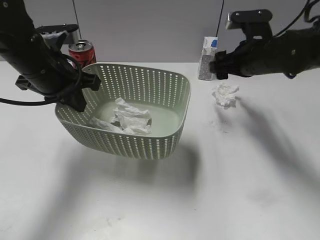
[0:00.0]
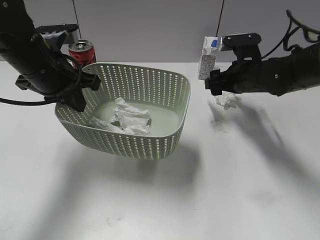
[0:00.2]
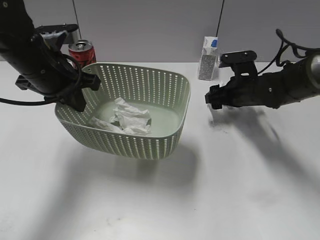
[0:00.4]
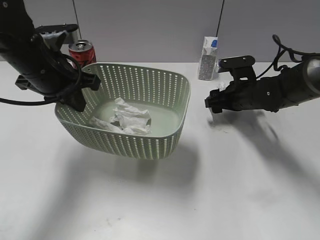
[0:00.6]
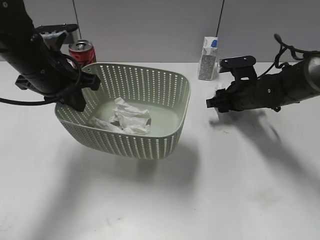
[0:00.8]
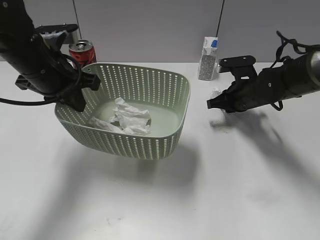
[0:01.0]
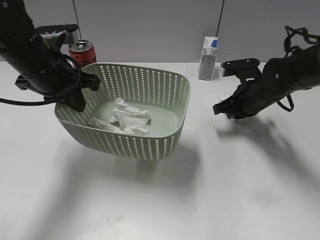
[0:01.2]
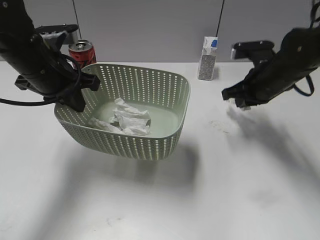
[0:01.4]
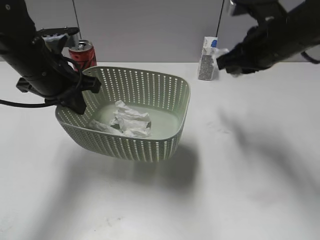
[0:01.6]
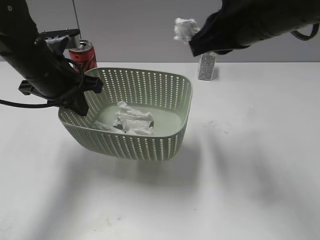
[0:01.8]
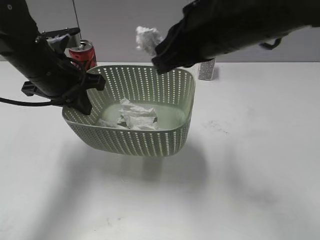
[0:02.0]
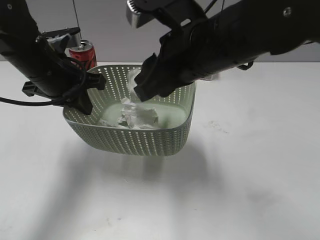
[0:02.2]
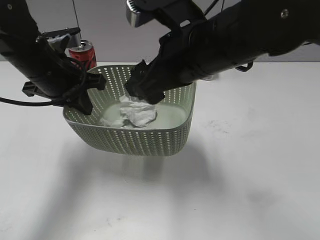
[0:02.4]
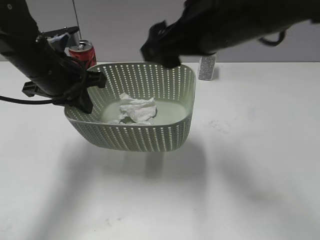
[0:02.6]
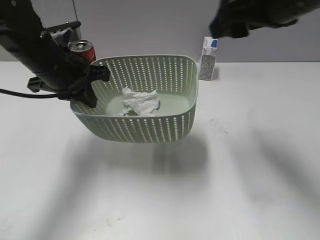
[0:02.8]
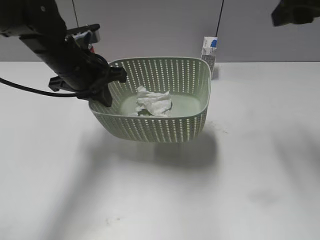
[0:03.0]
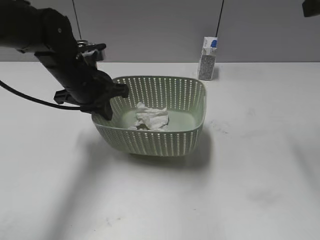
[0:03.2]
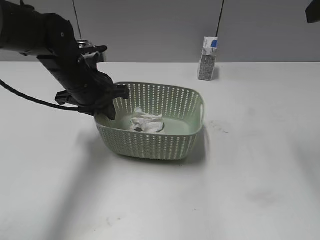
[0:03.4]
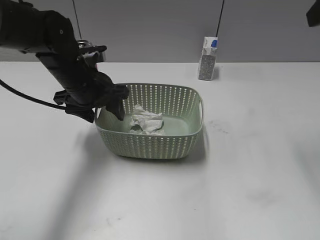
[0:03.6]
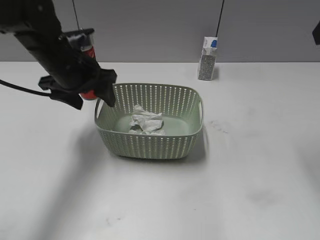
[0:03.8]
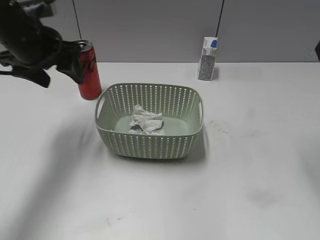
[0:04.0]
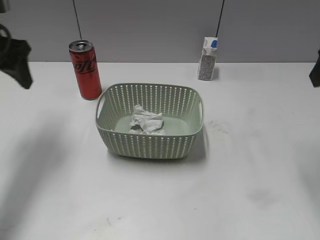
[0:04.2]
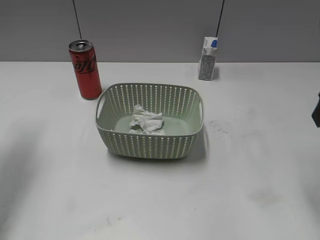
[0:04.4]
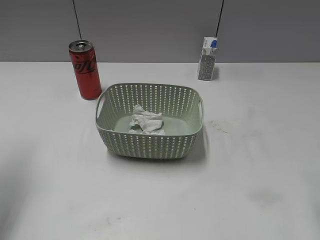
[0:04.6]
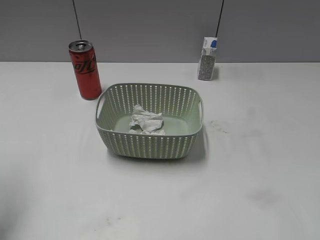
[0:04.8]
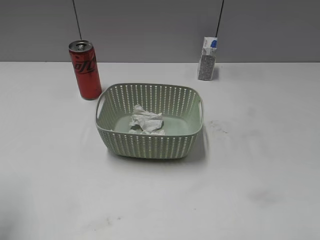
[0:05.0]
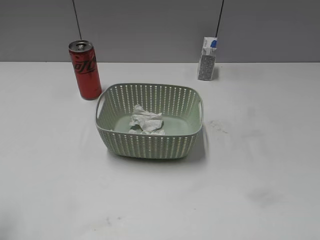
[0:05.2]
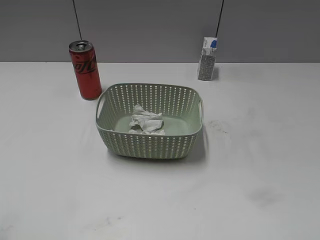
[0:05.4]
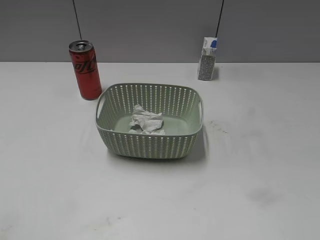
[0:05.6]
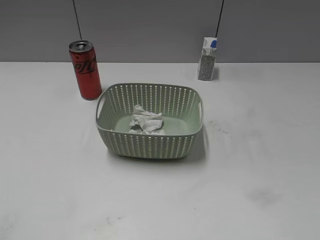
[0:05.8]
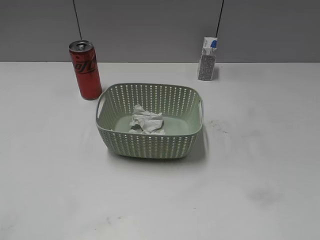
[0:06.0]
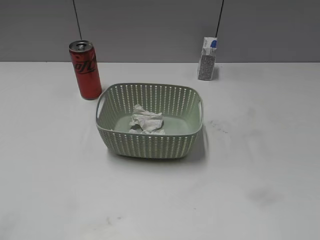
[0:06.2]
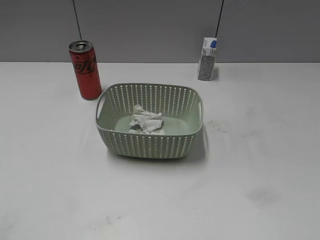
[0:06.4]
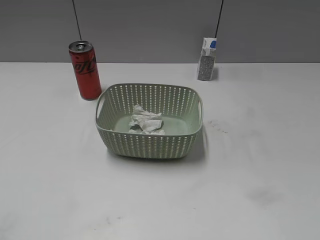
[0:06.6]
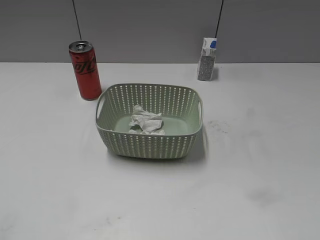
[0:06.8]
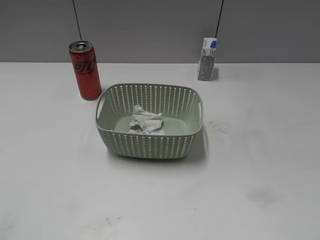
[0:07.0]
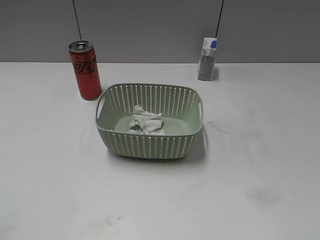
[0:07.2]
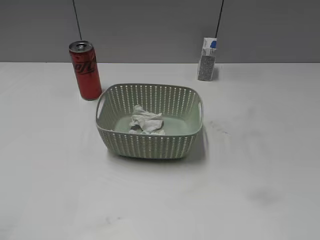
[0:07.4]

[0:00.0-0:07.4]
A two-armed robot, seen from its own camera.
Step, 0.0 to 1.4 s: Grasp the waste paper with right gripper.
Step, 1.6 to 2.6 s: Place the waste paper in the basket with right gripper.
Step, 2.8 to 3.8 s: Place the basket on the table with left gripper.
0.0 to 1.4 s: The right gripper heads downward, covering roughly 5 cm, and closes its fingers.
1.4 to 3.0 s: The right gripper goes up and down, approximately 20 cm each way, reversing 2 times, and opens.
3.0 to 4.4 s: The right gripper goes about 5 cm backward. Meanwhile the left gripper shifts about 20 cm to the left and upward, and opens up.
4.4 to 6.0 s: The left gripper shifts some 30 cm backward.

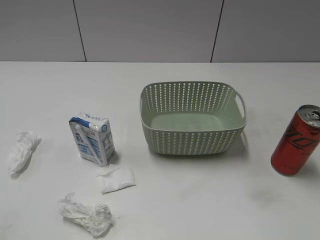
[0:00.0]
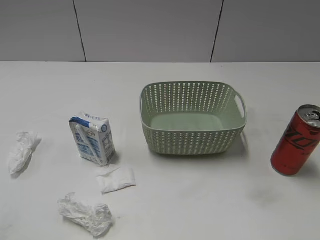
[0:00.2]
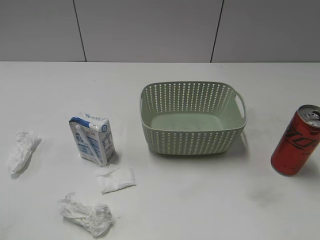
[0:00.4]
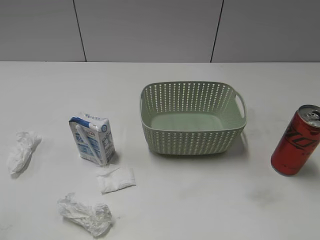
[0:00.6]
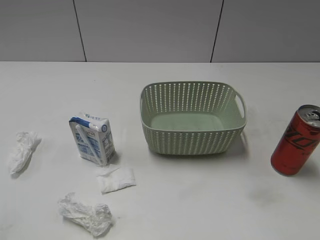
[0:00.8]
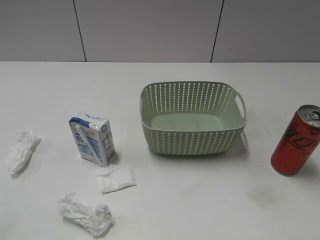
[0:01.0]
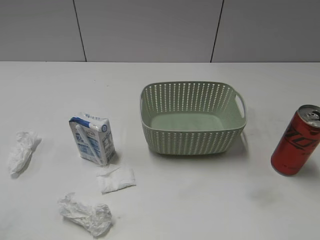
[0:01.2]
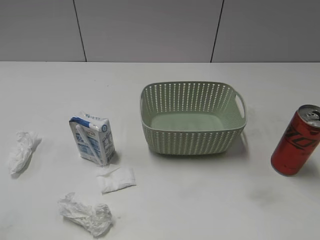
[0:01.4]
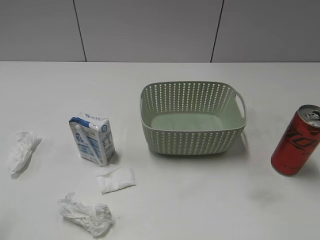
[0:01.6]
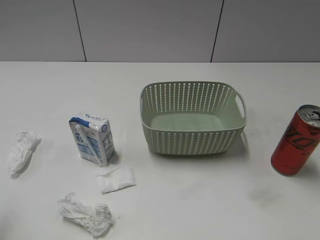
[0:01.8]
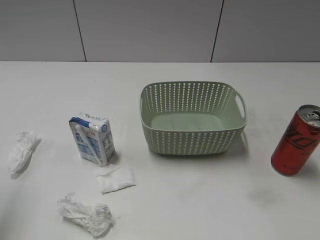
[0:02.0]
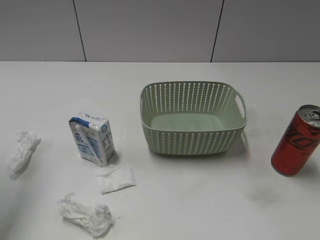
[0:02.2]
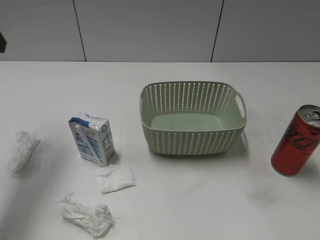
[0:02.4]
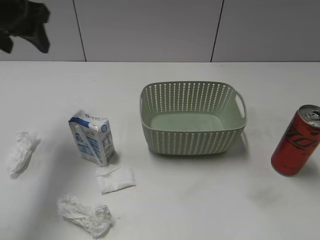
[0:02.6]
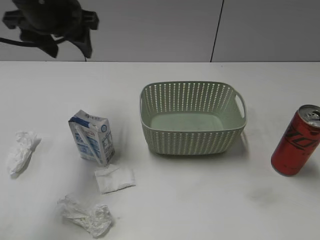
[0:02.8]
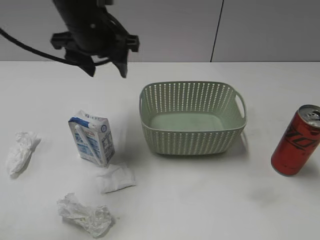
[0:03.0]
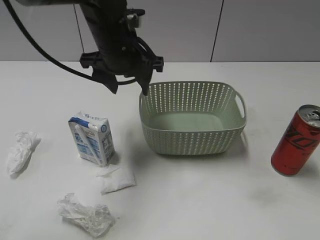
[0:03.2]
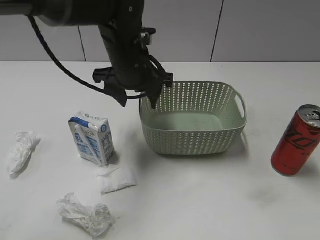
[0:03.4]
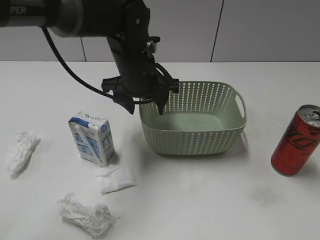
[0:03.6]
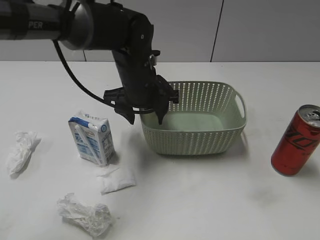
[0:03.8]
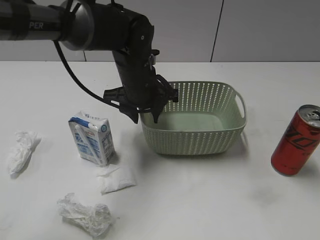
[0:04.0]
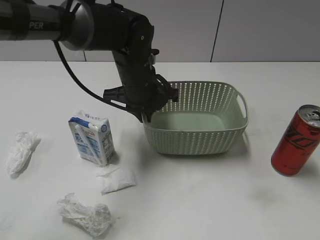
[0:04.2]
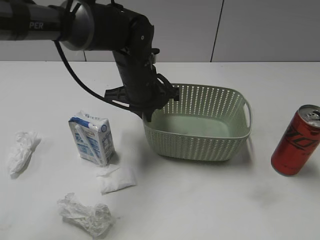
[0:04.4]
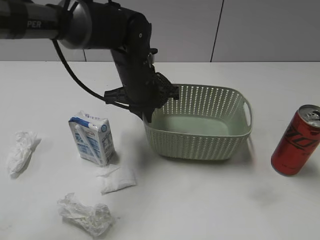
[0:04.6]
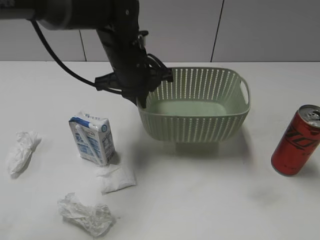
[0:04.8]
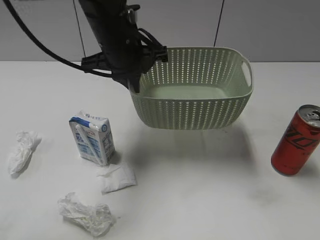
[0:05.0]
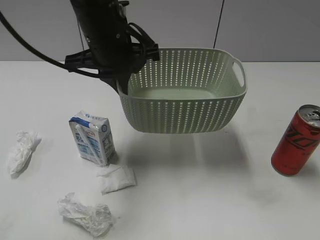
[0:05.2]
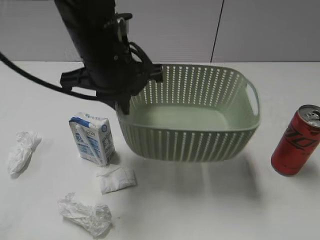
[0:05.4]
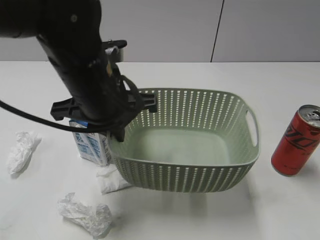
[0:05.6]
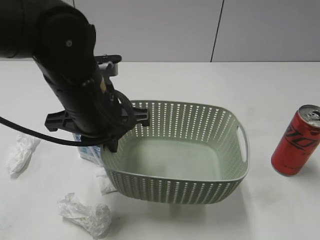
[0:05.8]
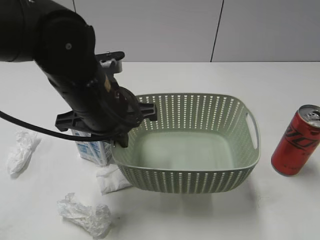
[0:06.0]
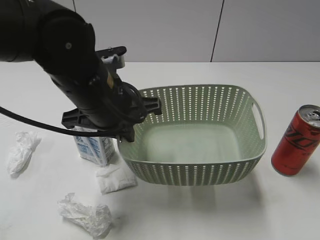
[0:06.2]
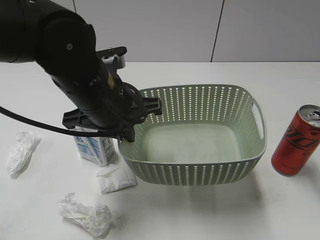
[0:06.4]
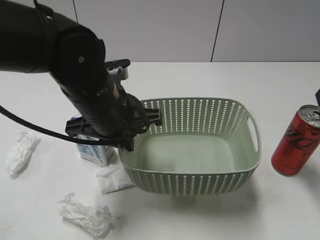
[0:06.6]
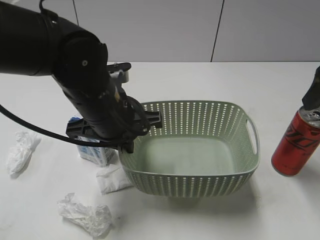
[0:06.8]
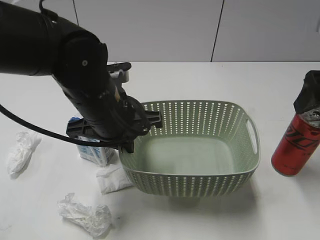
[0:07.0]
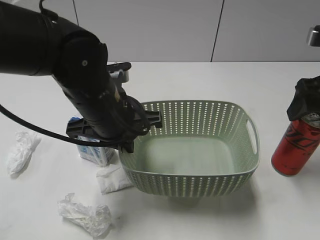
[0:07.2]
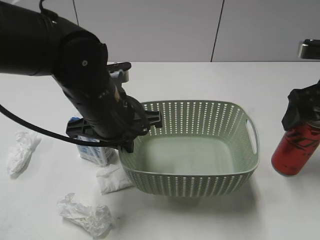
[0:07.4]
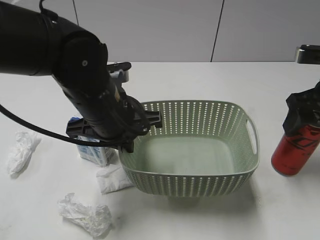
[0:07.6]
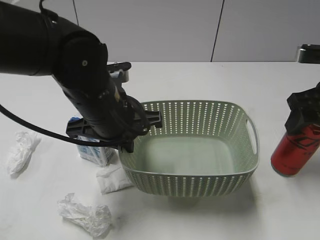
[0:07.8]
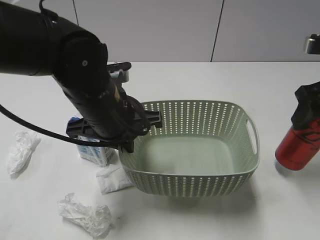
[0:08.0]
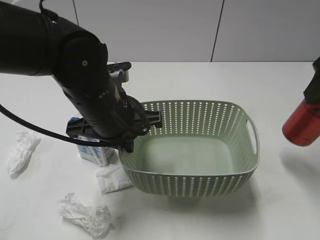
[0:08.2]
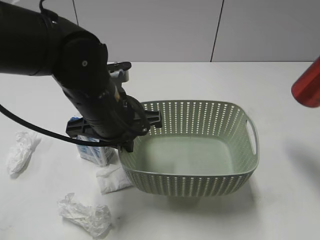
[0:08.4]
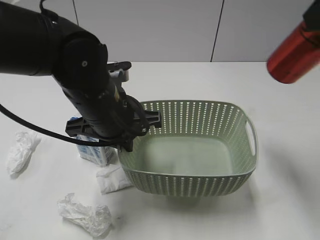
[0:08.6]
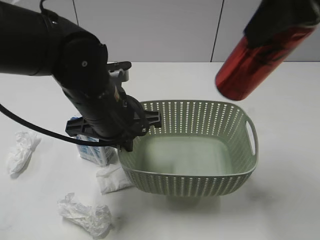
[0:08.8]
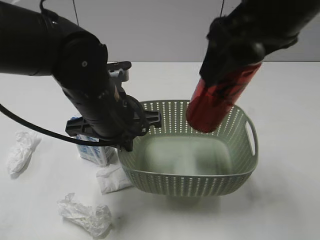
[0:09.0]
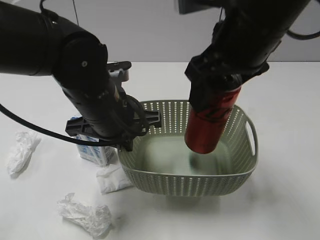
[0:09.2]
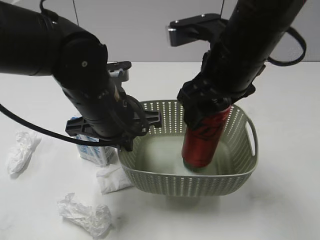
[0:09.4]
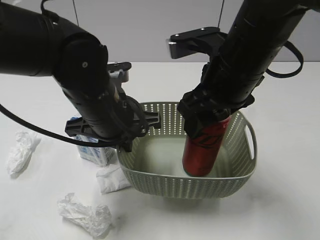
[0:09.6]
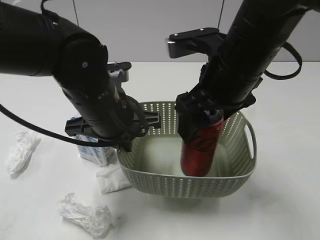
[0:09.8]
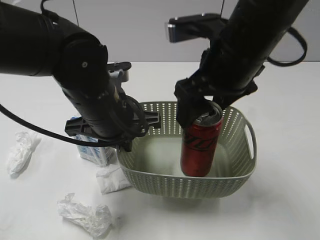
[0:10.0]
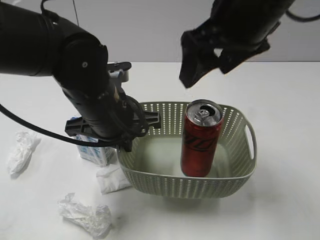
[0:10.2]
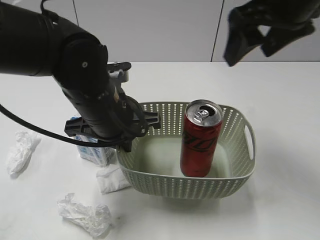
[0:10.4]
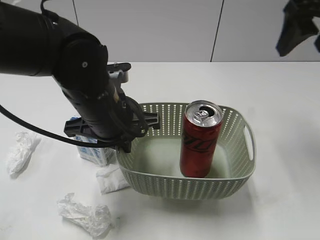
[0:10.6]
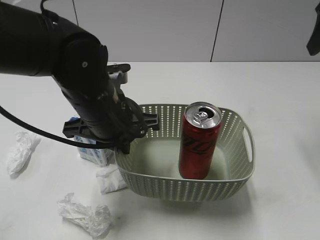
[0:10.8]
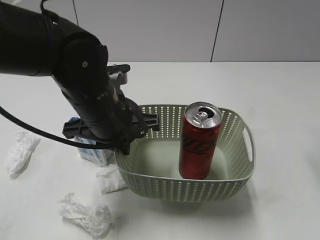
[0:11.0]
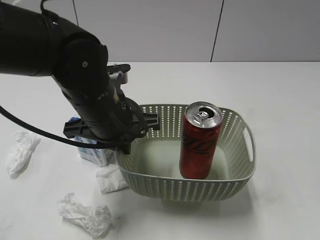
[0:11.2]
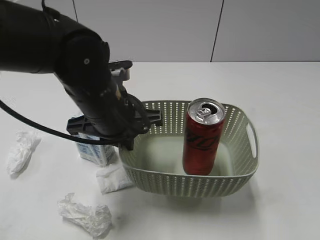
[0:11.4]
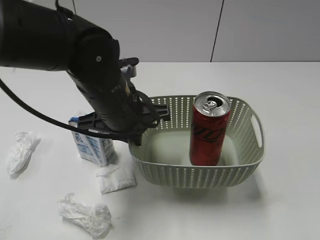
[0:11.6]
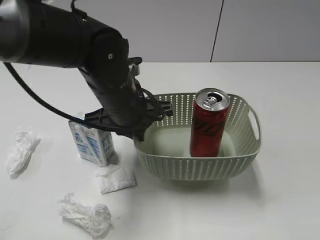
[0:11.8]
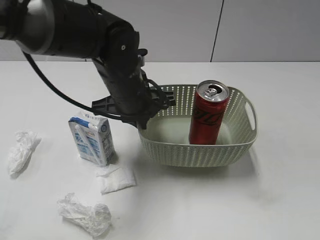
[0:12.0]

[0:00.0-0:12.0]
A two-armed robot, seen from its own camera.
Step, 2.4 to 4.4 s: Grasp the basket with left gripper.
Step, 4.6 to 6.4 s: Lift the basket with left gripper.
Step, 6.6 to 7.6 s: Grasp the cola can with right gripper.
Step, 7.8 to 10.2 s: Place the cola can in the basket with right gripper.
1.6 to 3.0 s: The left gripper goes approximately 40 cm forward and to the right.
3.0 to 4.4 s: The left gripper heads downward and to the right, covering about 15 cm, and closes its fingers.
4.4 to 6.0 s: The right gripper is displaced forward by some 5 cm, and opens. Meanwhile the left gripper is displaced backward, upward and to the left by some 15 cm.
6.0 to 7.6 s: The right gripper shifts roughly 25 cm forward and downward, and closes its fingers.
7.6 to 9.0 s: The right gripper heads to the left and upward, covering some 20 cm, and closes.
9.0 to 10.4 s: The right gripper heads forward, covering approximately 5 cm, travels downward and back again, approximately 10 cm each way, and opens up.
10.4 to 12.0 s: The right gripper shifts roughly 30 cm backward and to the right. The left gripper heads forward, covering roughly 5 cm.

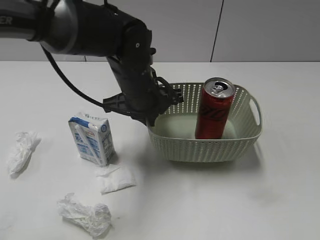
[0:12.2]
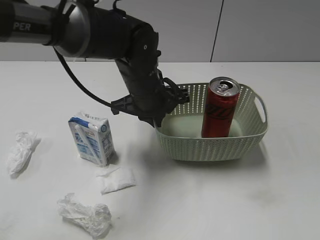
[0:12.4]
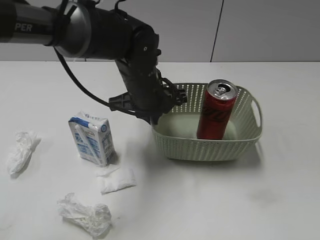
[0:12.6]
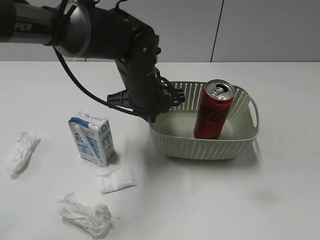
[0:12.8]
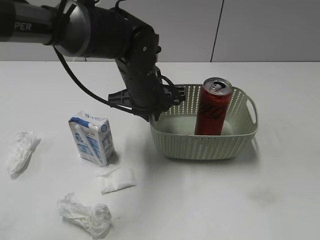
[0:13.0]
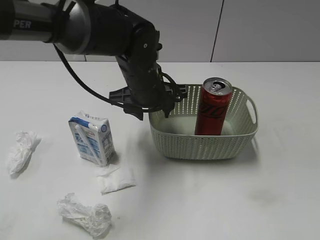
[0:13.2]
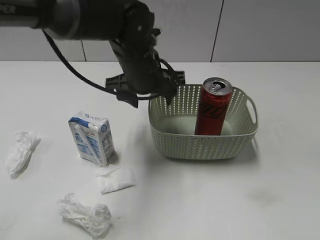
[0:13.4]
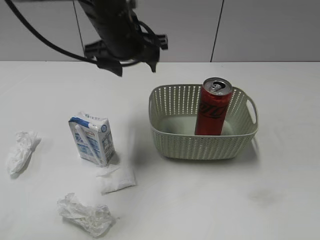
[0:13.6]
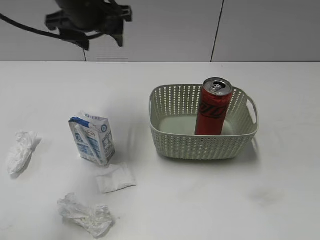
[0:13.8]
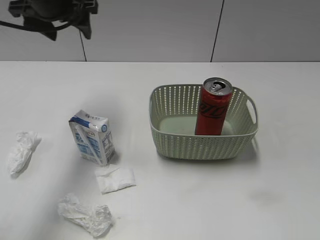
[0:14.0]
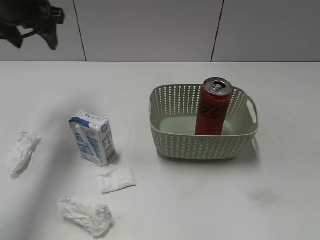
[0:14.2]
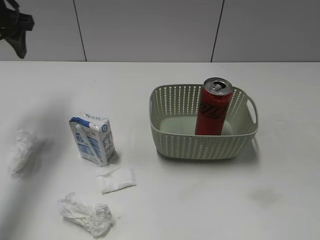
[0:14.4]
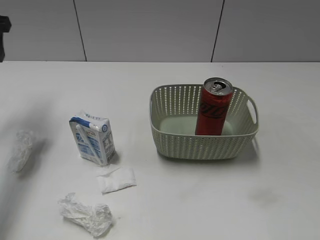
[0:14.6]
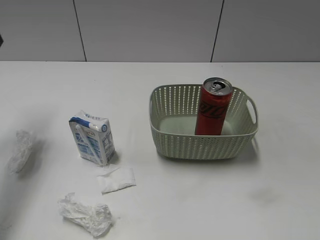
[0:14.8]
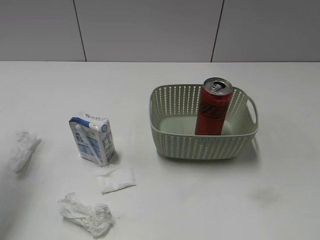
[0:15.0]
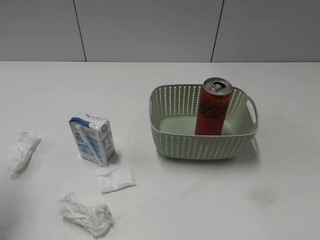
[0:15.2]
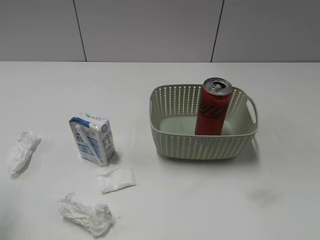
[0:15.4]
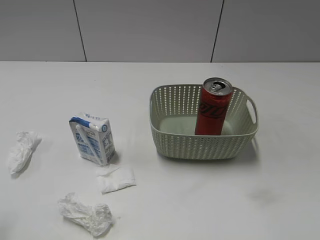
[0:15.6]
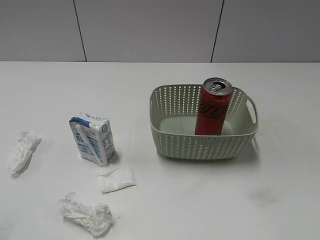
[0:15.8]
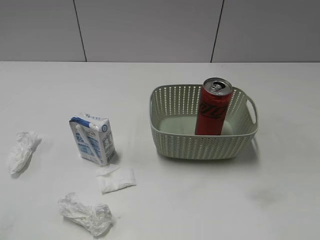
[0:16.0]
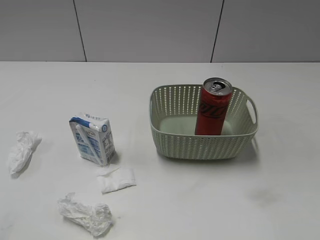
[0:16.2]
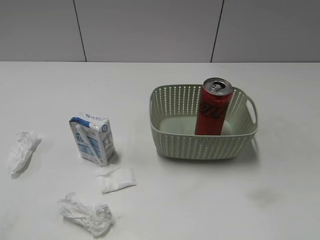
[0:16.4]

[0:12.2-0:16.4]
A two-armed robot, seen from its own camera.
12.2 to 13.6 s: The left gripper travels upward by some 5 cm, and opens.
13.6 to 15.0 s: The left gripper travels to the left by about 25 cm.
15.0 to 16.4 s: The left gripper is displaced backward by roughly 30 cm.
